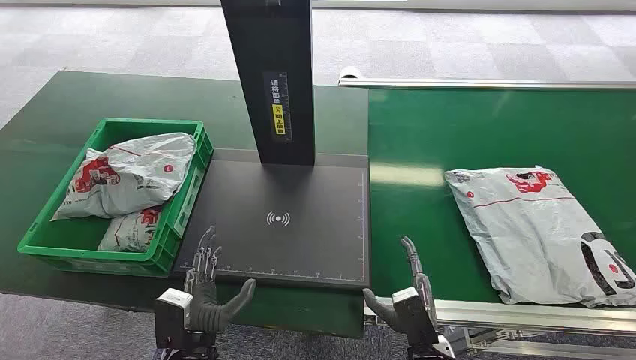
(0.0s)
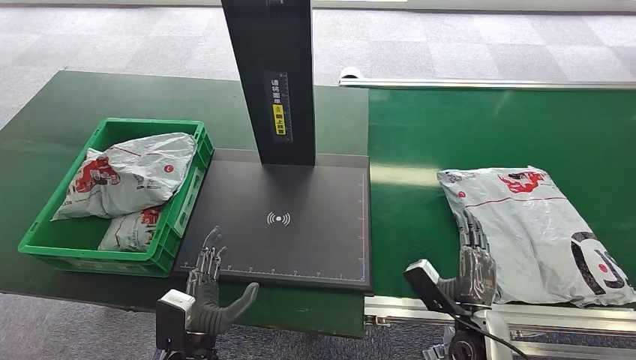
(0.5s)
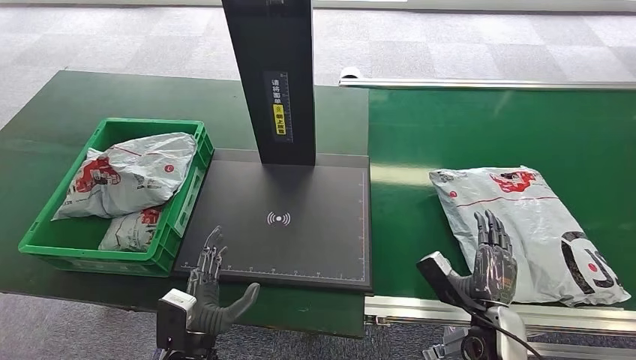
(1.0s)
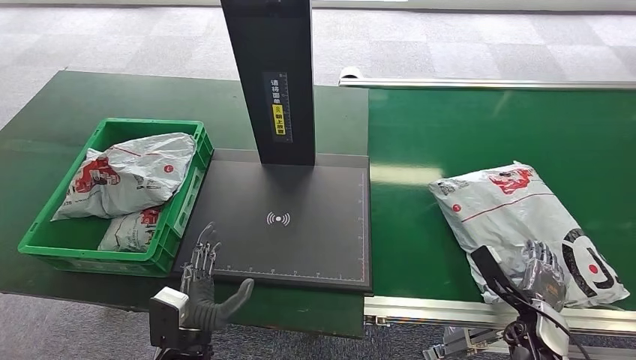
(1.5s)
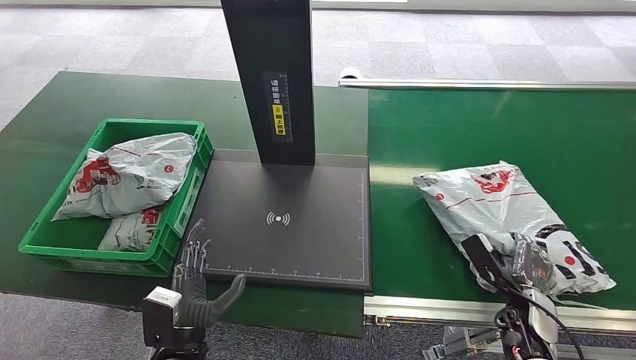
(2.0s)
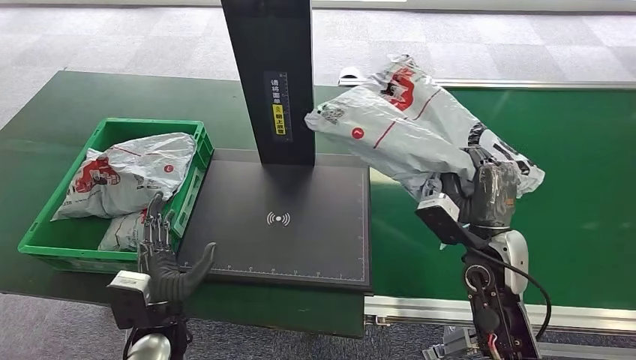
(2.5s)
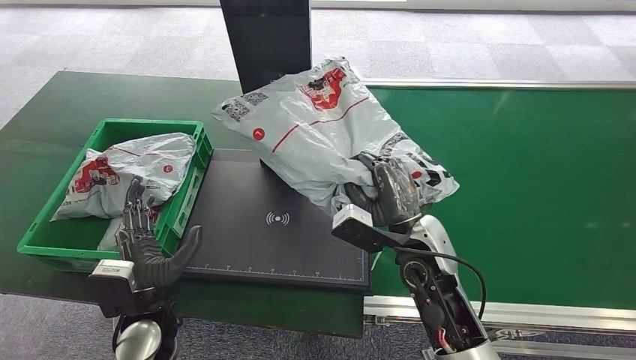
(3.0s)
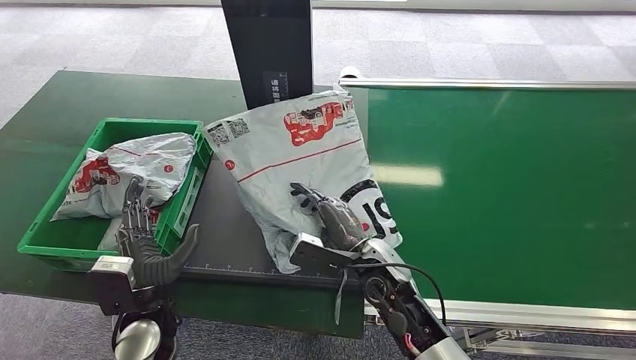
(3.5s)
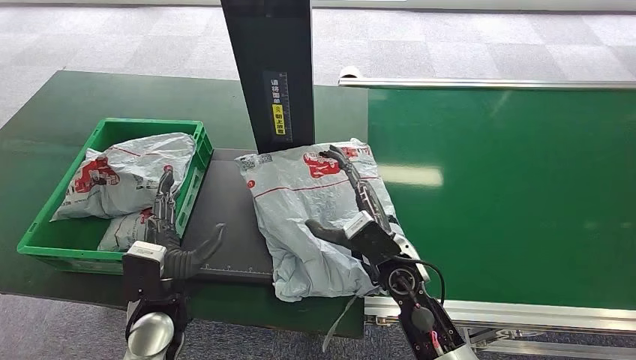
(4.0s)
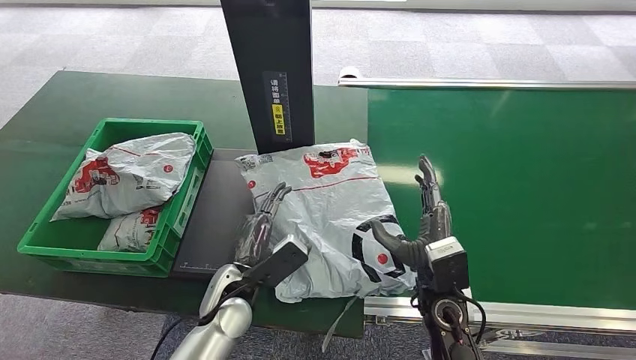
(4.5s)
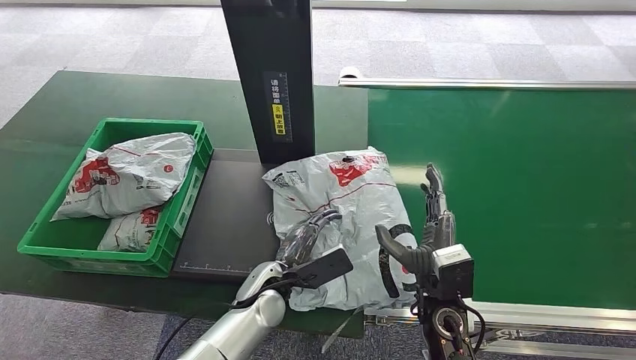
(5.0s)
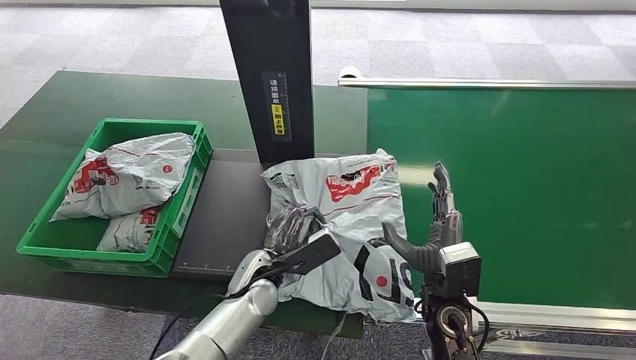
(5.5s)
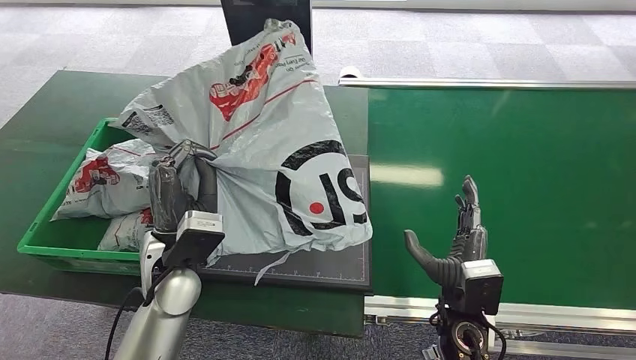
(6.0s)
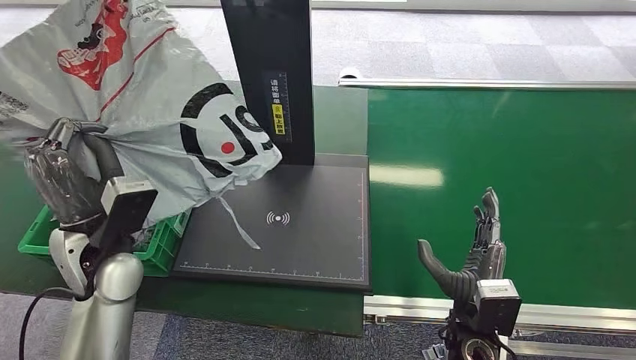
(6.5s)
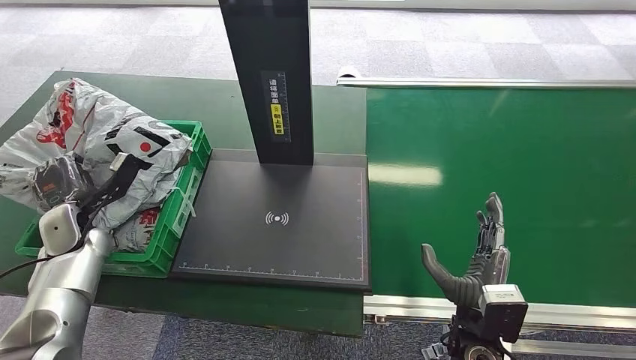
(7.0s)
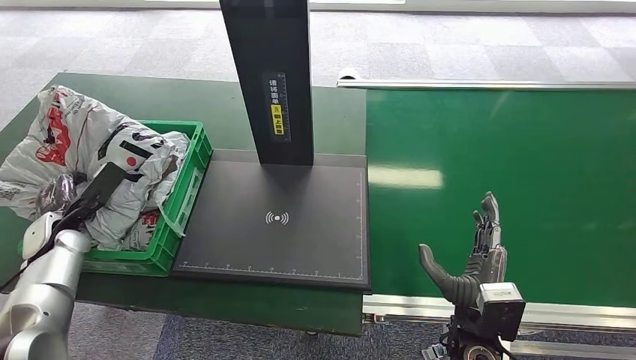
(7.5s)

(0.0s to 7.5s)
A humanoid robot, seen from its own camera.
Step, 0.0s - 2.0s: Pick up the package from the conveyor belt.
Step, 2.5s - 3.5s: Place the package onto the inbound machine.
Step, 4.0s - 5.5s: Pick up the package from the inbound machine.
Step, 6.0s - 7.5s: Place the package into the parcel locker.
4.0s - 5.5s: The right hand heads to the right, covering some 5 cm. The left hand shifts roughly 15 cm to the right and forward.

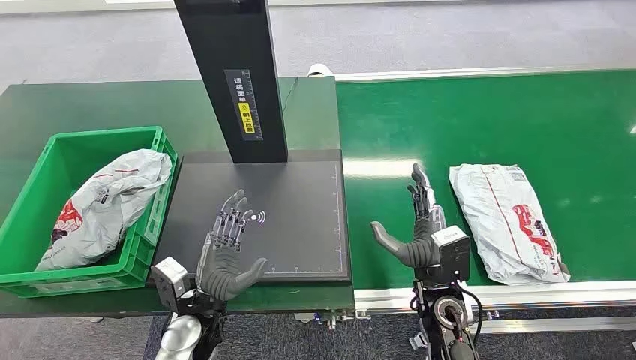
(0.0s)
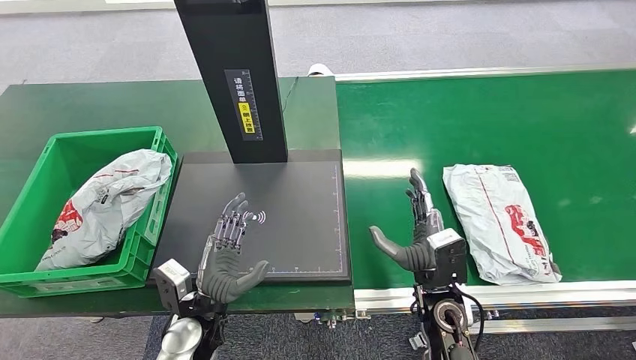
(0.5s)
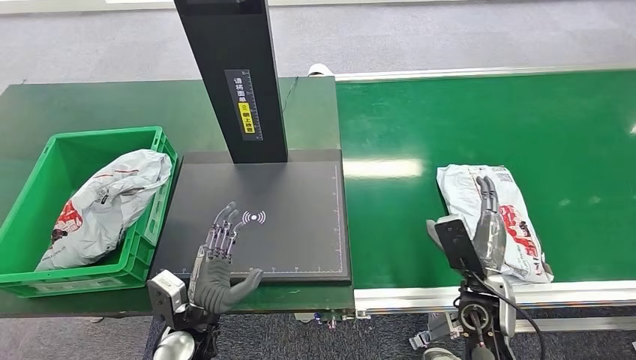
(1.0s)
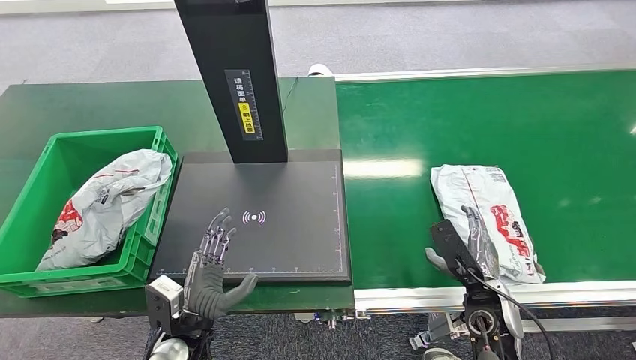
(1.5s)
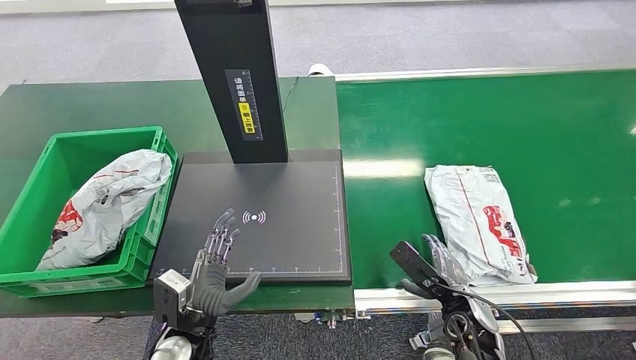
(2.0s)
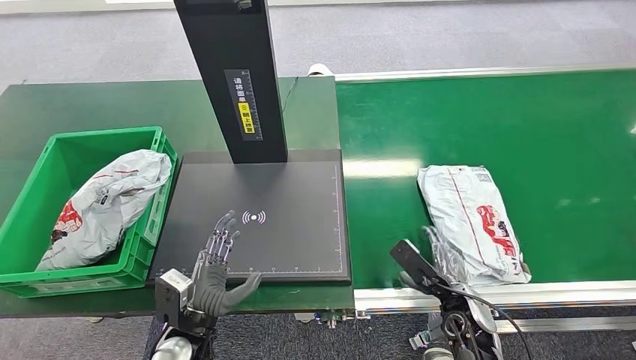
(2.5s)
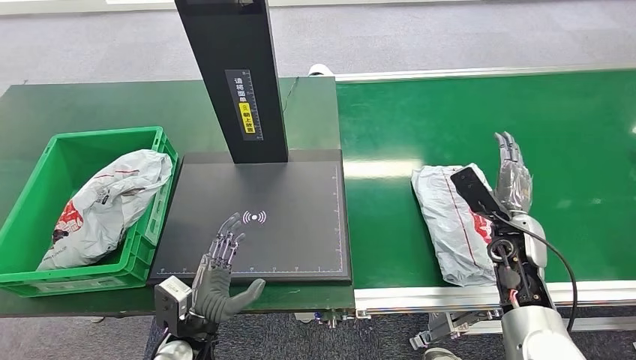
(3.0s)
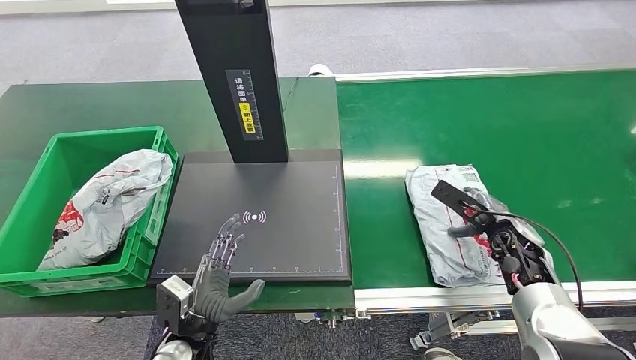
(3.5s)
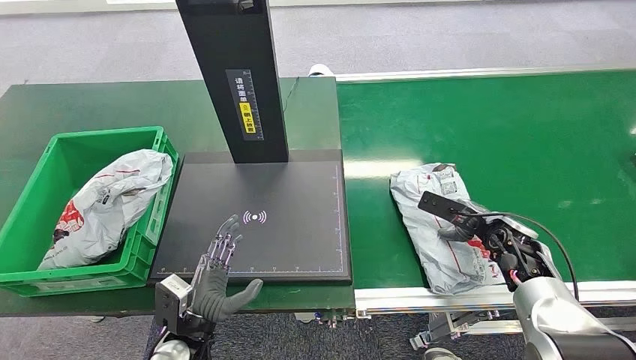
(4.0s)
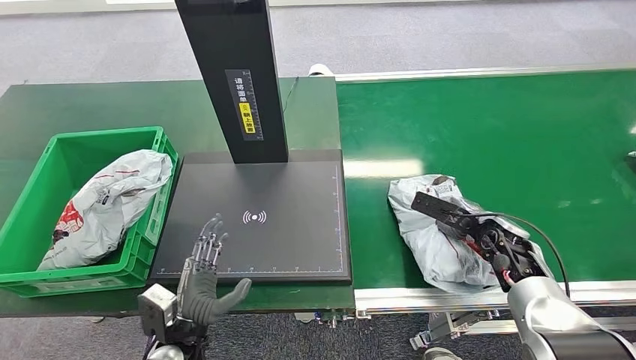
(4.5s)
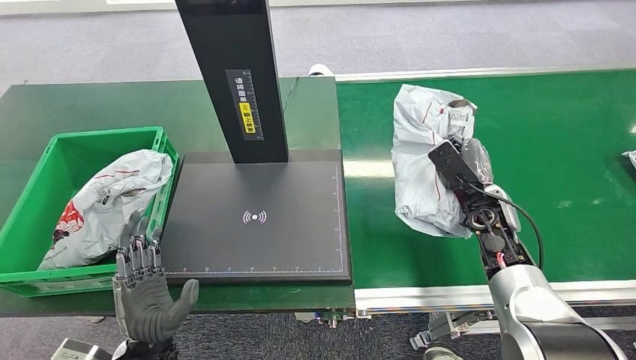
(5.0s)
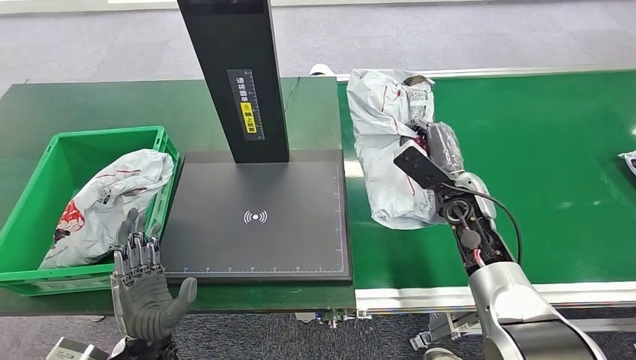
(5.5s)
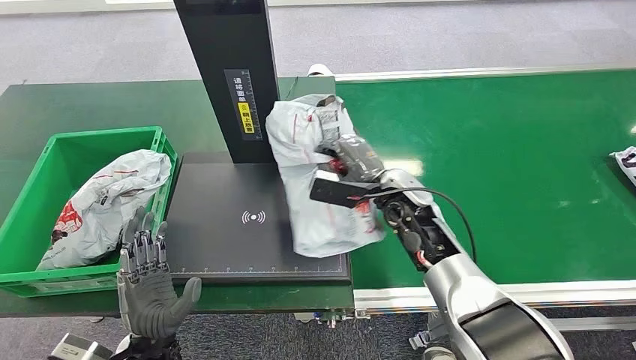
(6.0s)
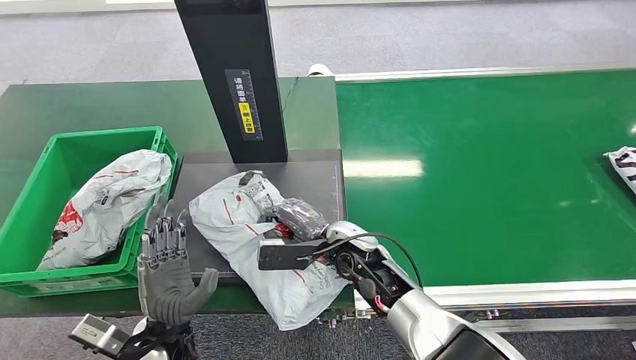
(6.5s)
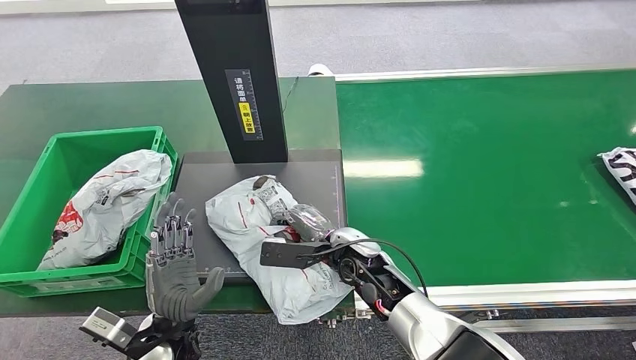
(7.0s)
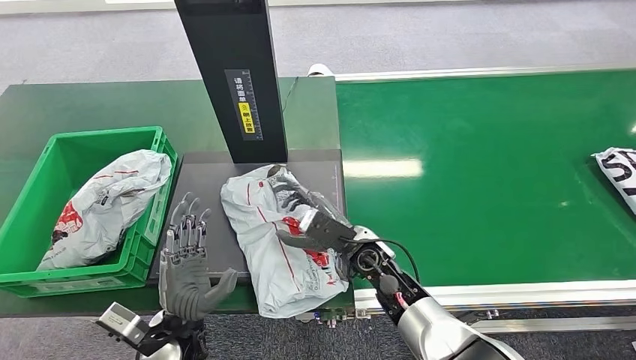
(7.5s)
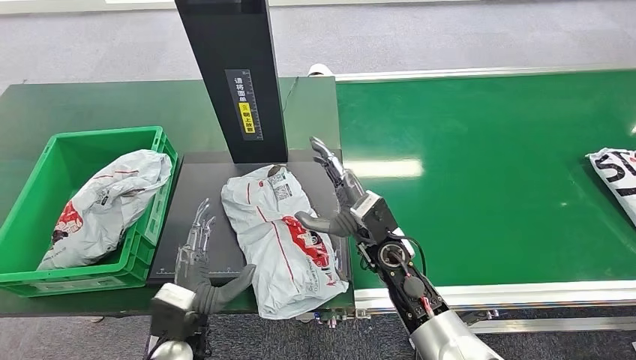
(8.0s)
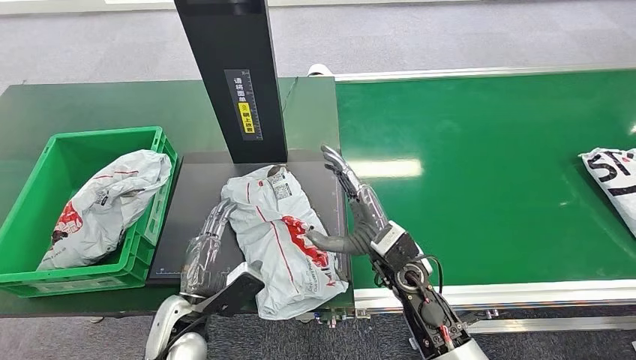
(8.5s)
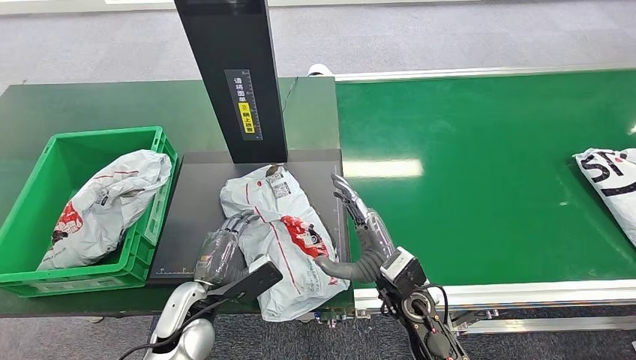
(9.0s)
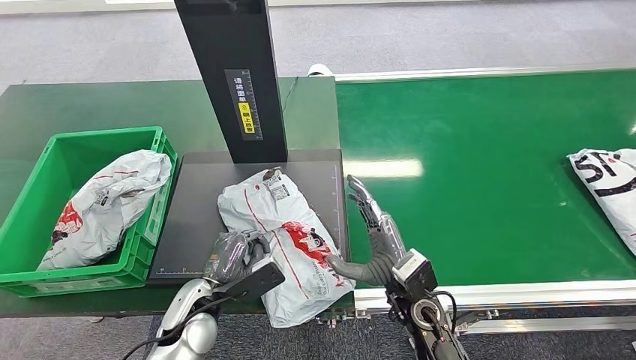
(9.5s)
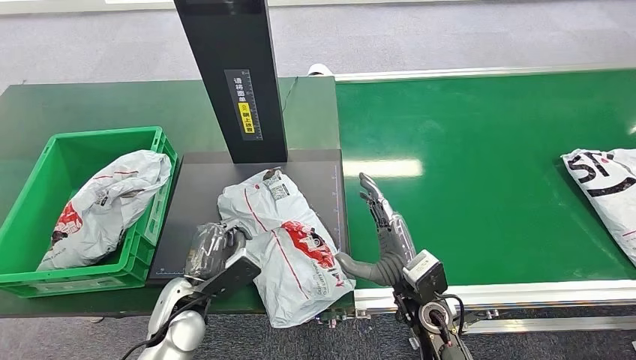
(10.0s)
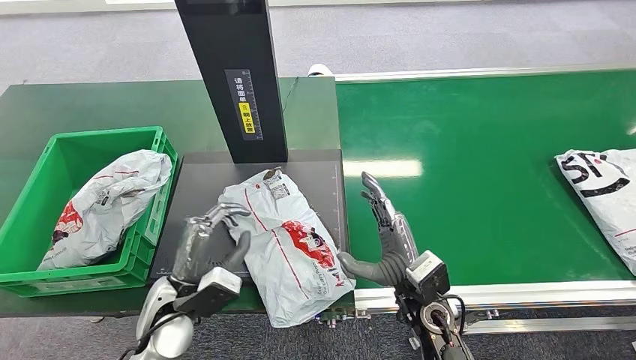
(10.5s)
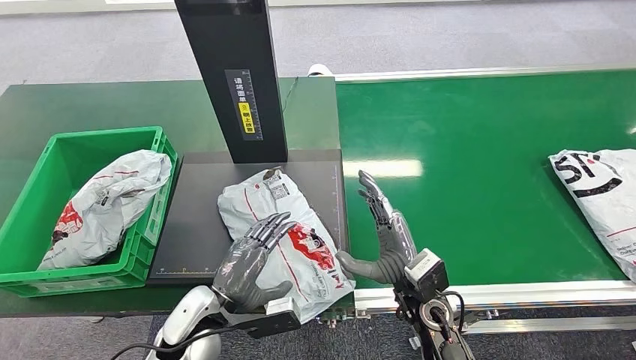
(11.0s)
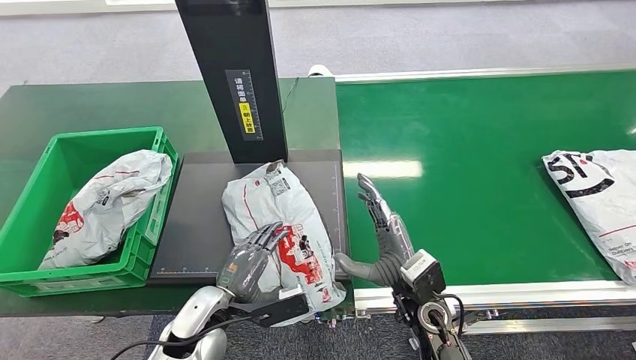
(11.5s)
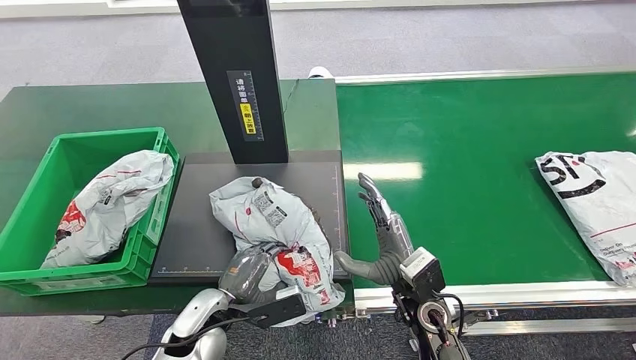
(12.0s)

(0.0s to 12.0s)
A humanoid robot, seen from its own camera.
Step, 0.0s - 5.0s: Pick up the package from the conveyor belt.
Step, 5.5s - 8.0s: Place the package onto the inbound machine.
2.0s - 4.0s: The right hand goes about 20 cm forward, to the right and upward.
8.0s - 10.0s: The right hand heads backward, covering roughly 10 cm. Meanwhile the left hand heads forward, covering some 5 cm.
